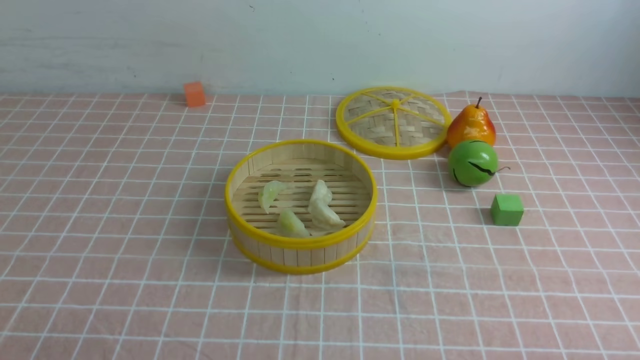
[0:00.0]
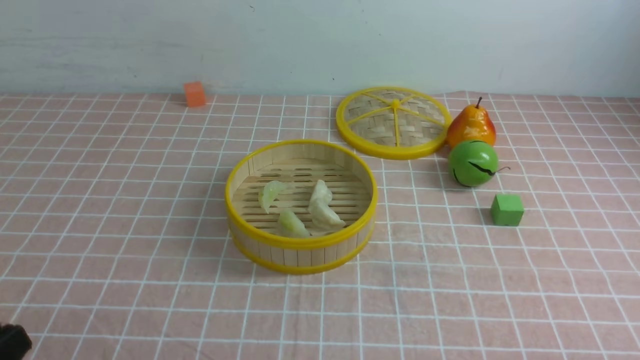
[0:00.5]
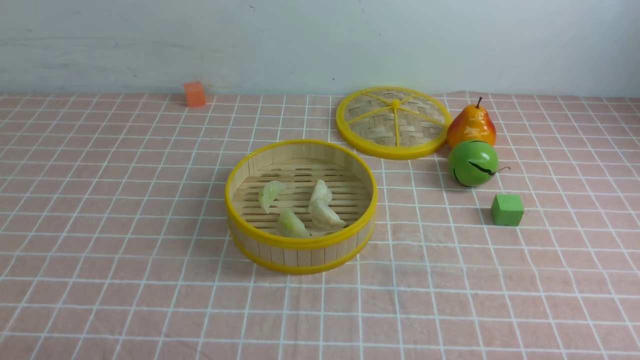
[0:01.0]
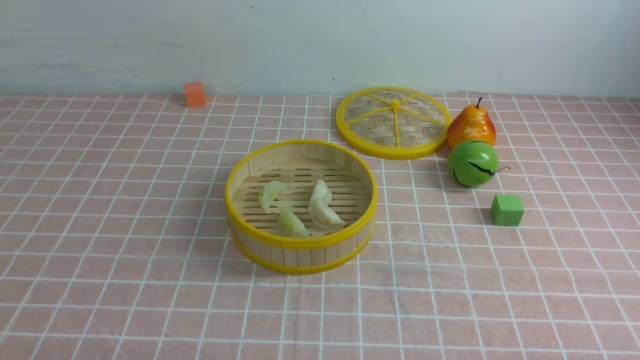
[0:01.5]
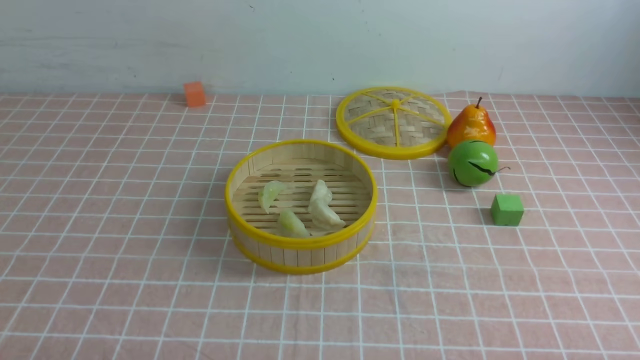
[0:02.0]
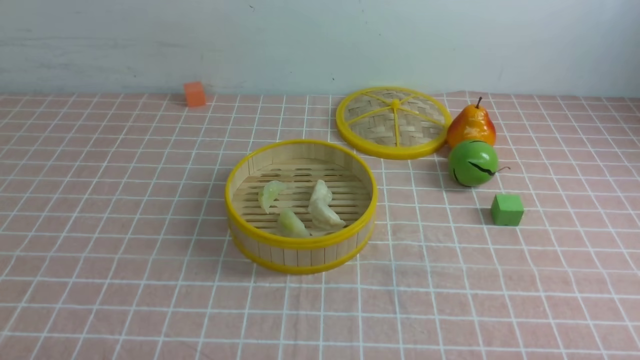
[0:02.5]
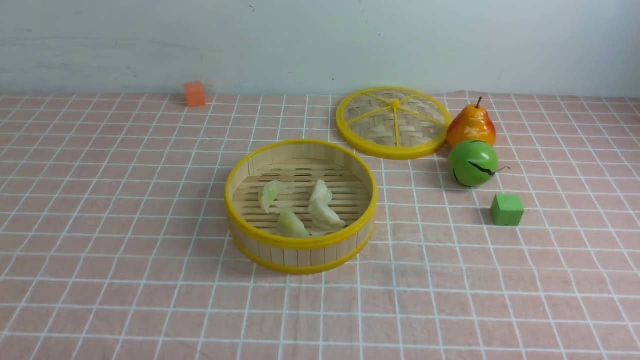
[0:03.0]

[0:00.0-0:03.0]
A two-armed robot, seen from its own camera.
Task of the whole recording: put the dumplings into the steamer on the table with the pink tablecloth.
0:01.5 to 0:03.0: Both grippers stay about where they are.

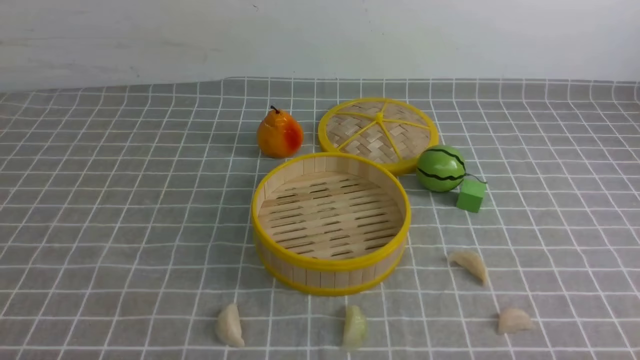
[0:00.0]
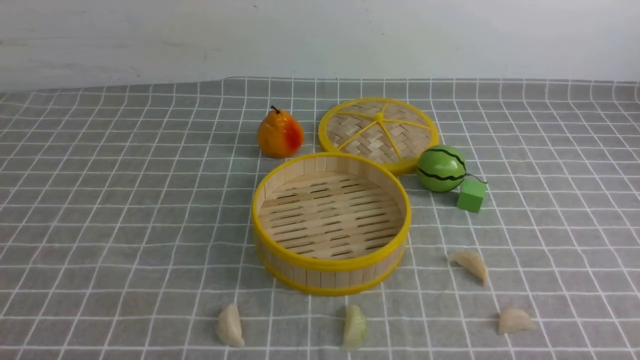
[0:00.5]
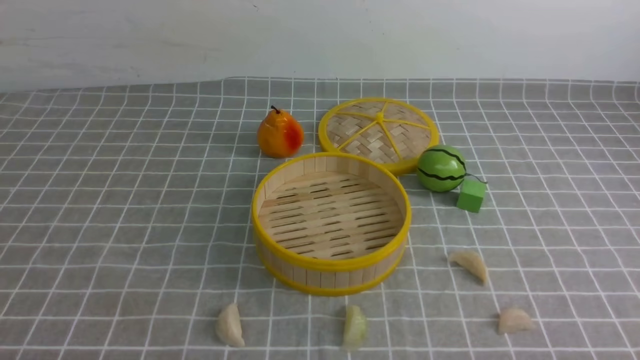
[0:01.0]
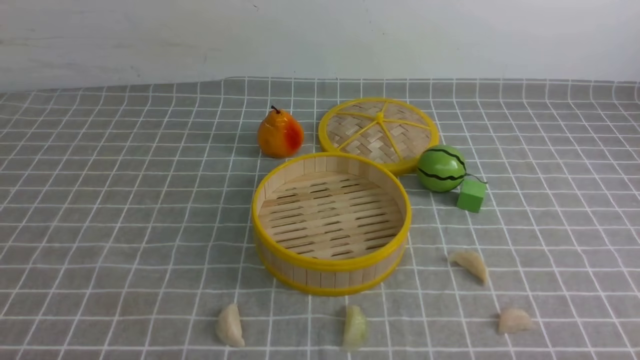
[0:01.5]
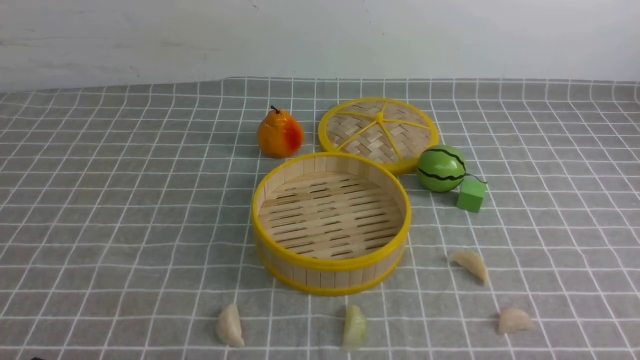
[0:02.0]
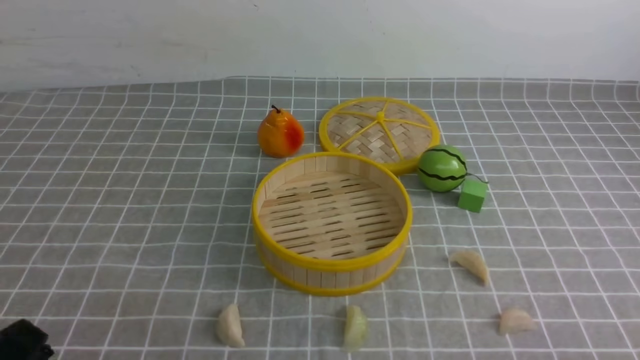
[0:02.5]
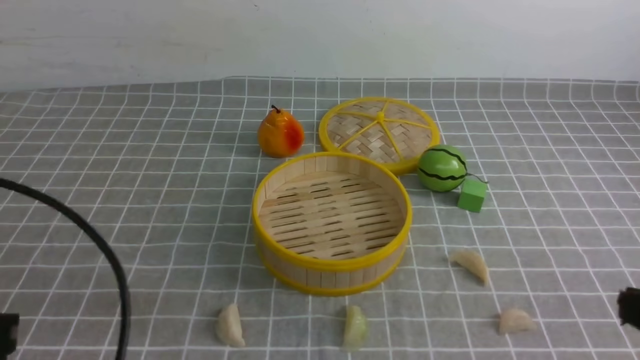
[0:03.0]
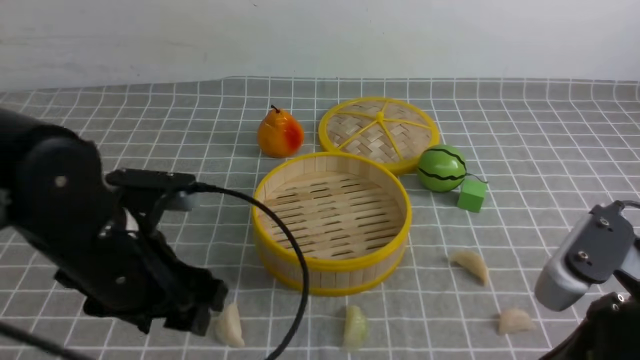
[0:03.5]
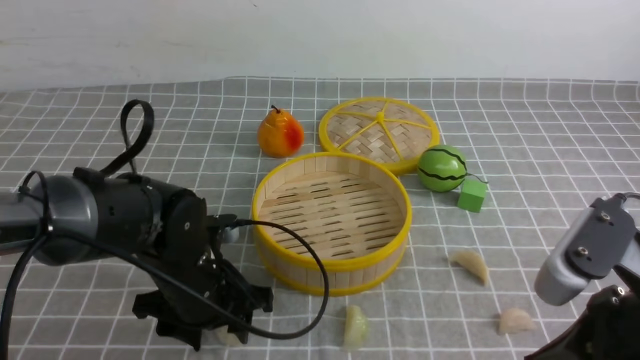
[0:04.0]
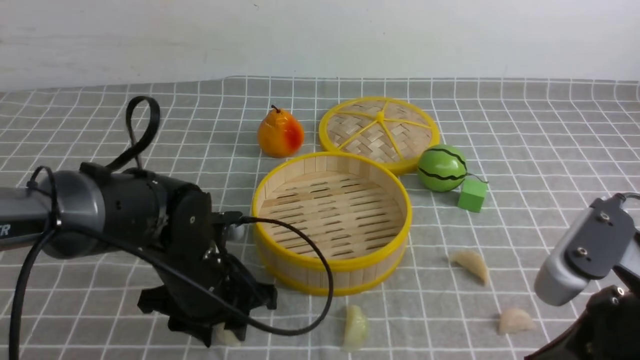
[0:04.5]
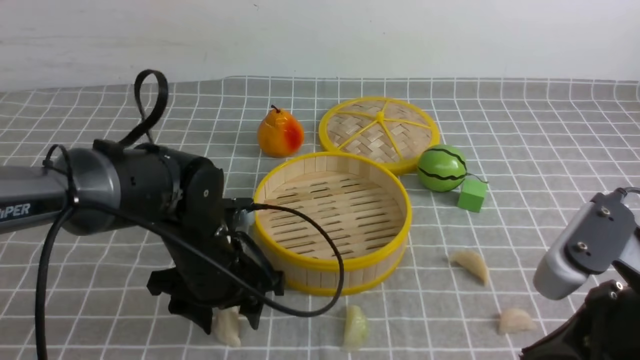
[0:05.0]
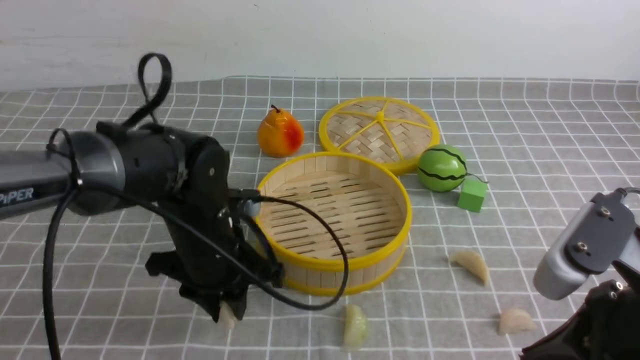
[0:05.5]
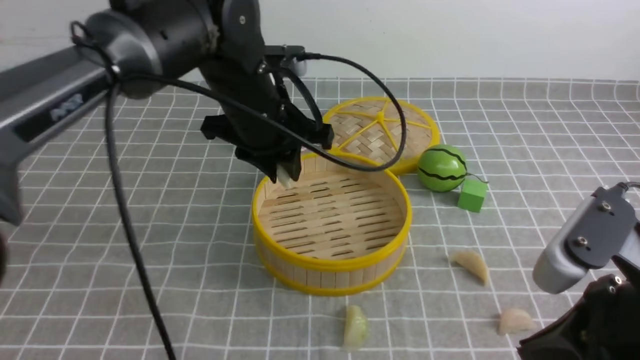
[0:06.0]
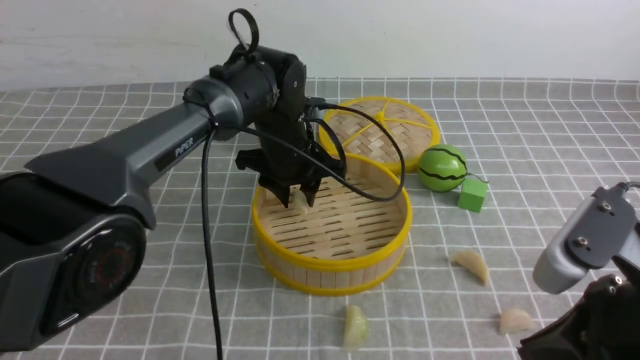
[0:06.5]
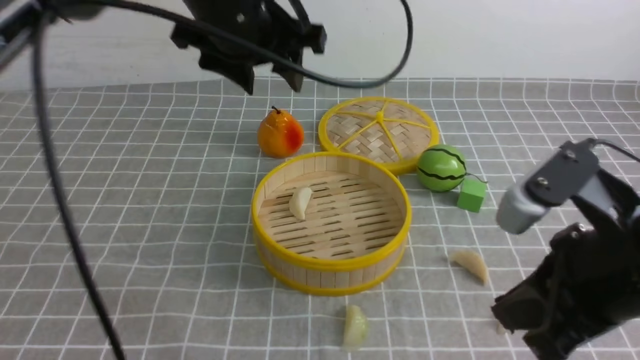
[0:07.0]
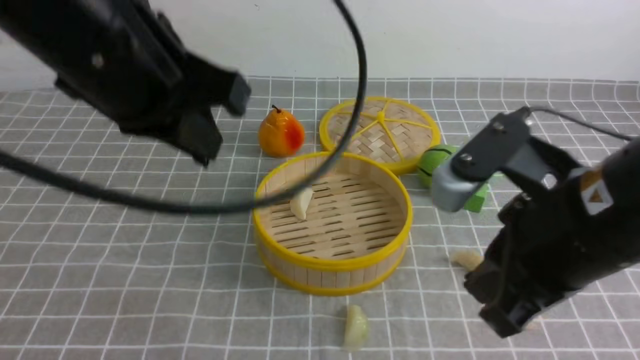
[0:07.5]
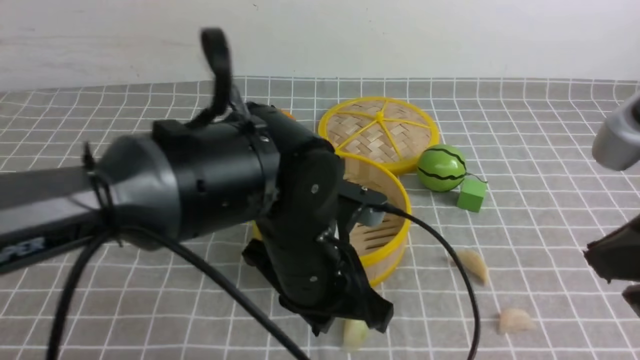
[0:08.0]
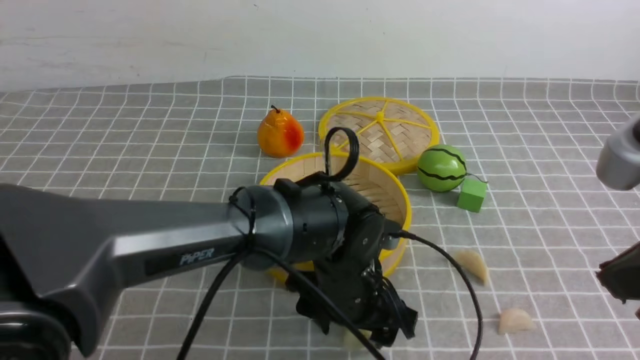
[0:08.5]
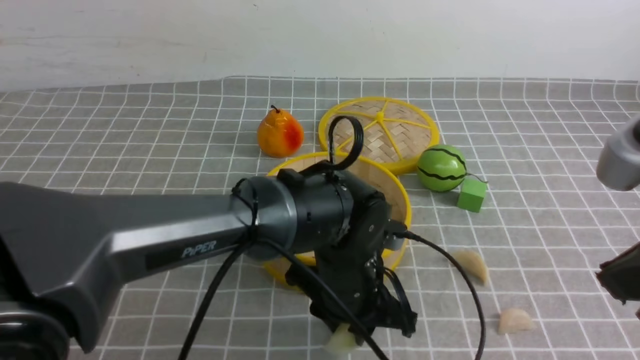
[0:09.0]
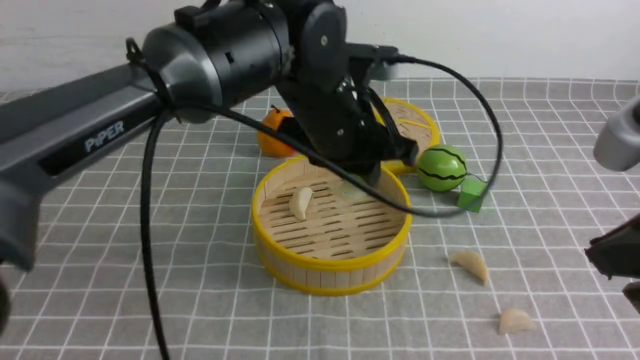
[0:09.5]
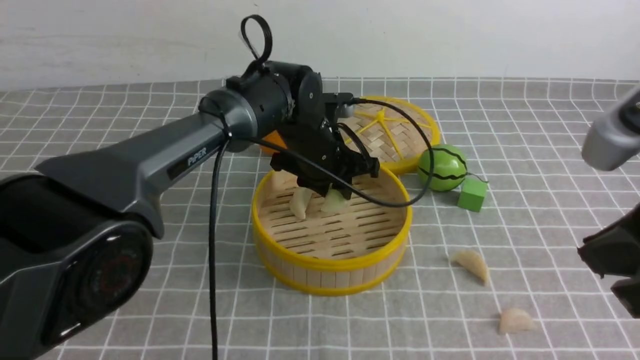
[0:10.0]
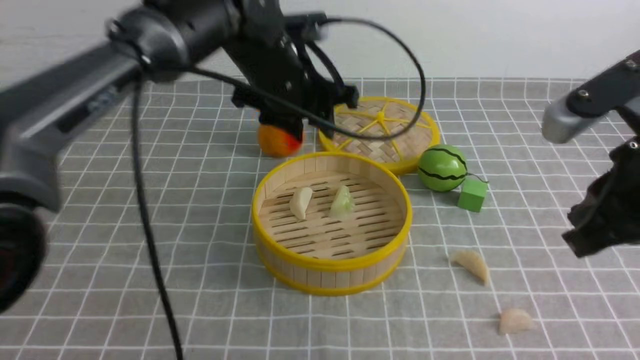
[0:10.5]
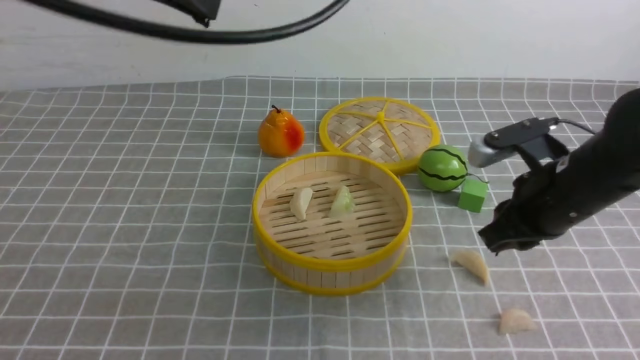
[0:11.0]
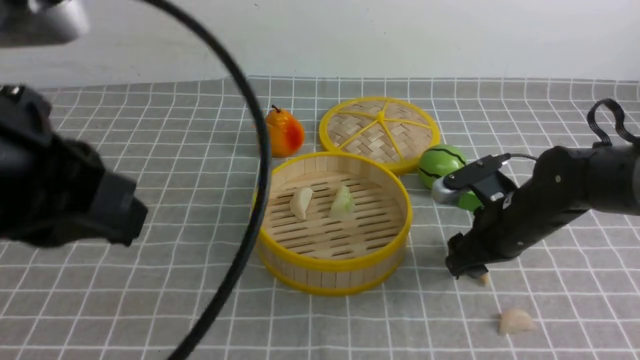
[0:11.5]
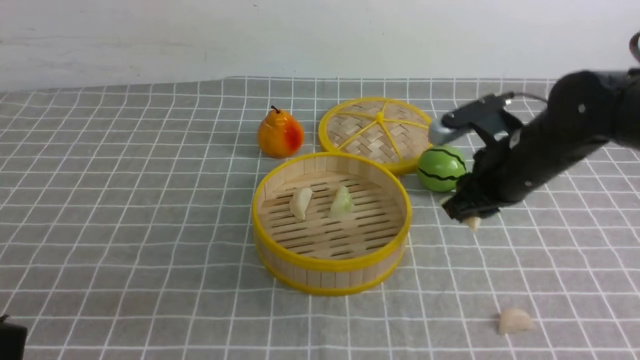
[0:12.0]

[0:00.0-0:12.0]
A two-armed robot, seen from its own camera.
Task of the whole recording: put the dumplings into the steamer on the table with the grey tablecloth.
Step, 0:00.0 to 0:05.5: use the left arm to grab a dumpling.
Step, 0:06.0 to 0:06.5: use the left arm to put the dumpling into the steamer.
Step, 0:07.0 to 0:09.0: use the left arm to grab a dumpling.
Step, 0:09.5 to 0:10.0: use the left arm to put the dumpling into the steamer.
Step, 0:10.5 to 0:11.5: use the right arm to grab a dumpling.
0:02.0 to 0:04.0: The right gripper travels upward, forward and to the left by approximately 15 cm, and closes up. The left gripper travels forward and to the right by about 25 cm, and opens up.
0:04.0 to 0:06.0: The left gripper is displaced upward, forward and to the right by roughly 20 cm, and closes up.
0:06.0 to 0:08.0: The right gripper travels upward by some 10 cm. The left gripper goes approximately 15 cm backward.
0:08.0 to 0:10.0: The left gripper shifts approximately 20 cm forward, and opens up.
0:10.0 to 0:12.0: The left gripper is displaced backward, to the left and upward by roughly 50 cm, and closes. The right gripper moves forward and downward, about 25 cm, and opens, then closes again.

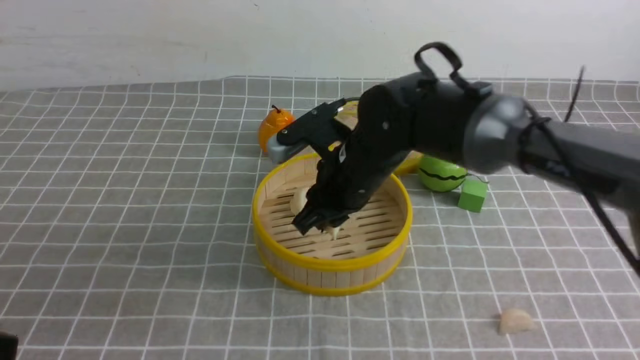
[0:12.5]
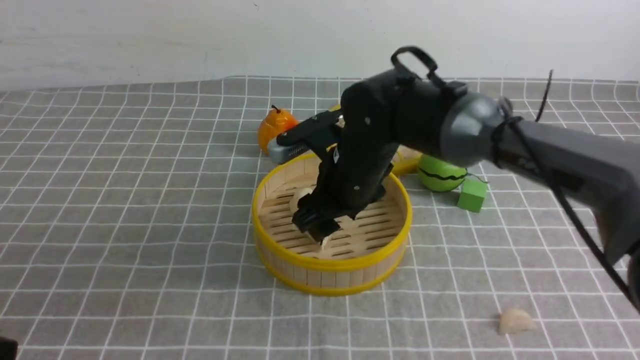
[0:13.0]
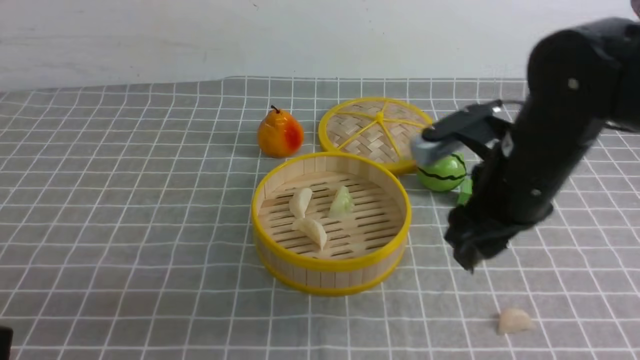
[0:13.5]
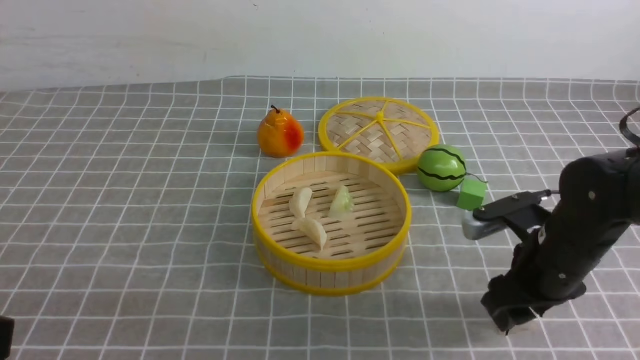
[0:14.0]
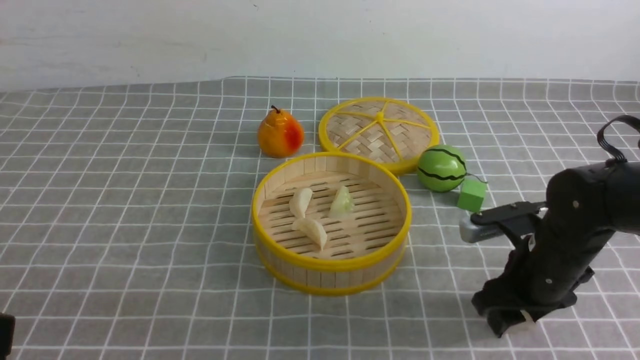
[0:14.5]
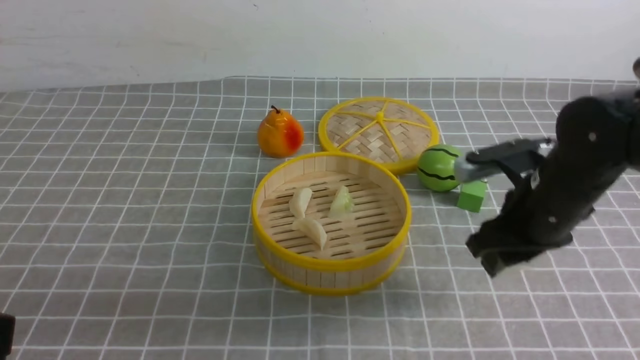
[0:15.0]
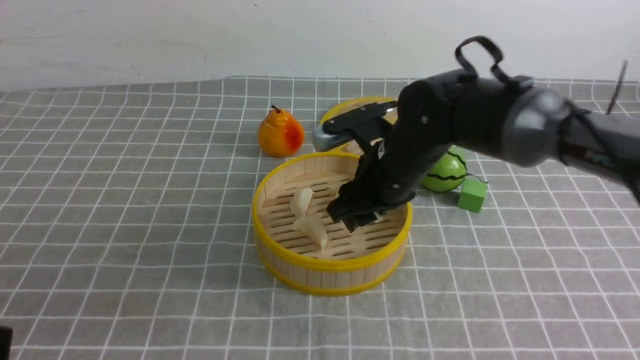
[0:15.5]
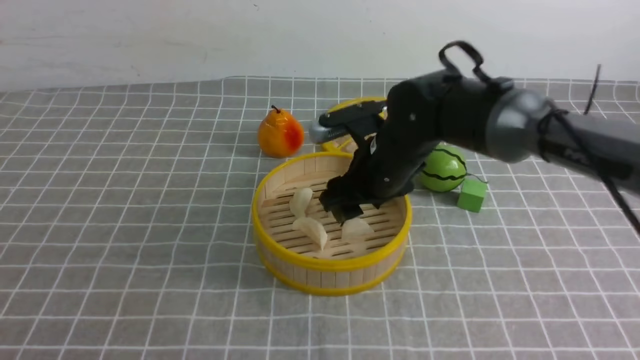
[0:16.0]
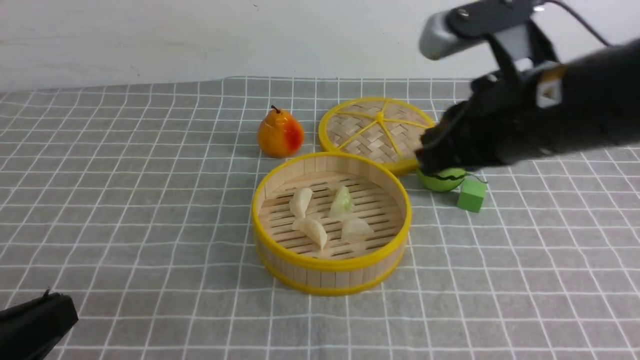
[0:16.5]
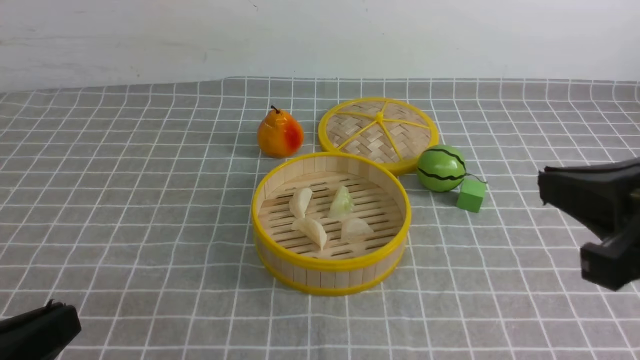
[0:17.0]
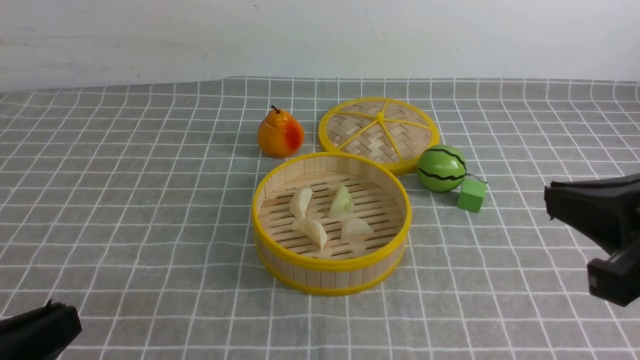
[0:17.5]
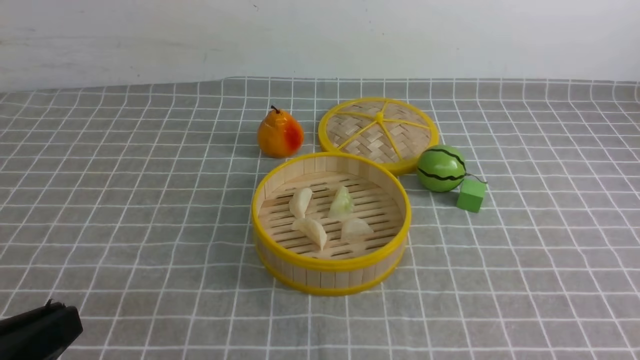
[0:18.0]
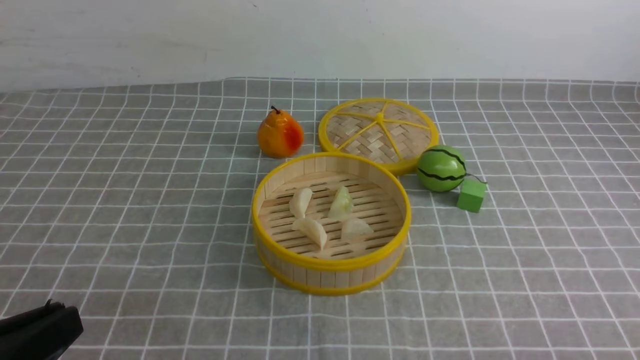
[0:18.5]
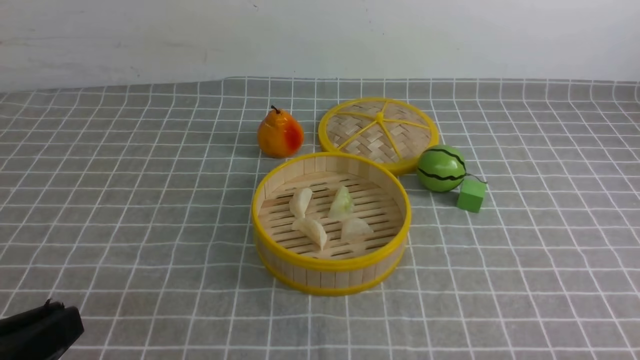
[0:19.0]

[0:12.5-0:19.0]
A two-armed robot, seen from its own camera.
Task of the whole recording: put the dumplings into the steamer on the table with the grey tablecloth.
Step, 0:13.5 to 0:15.0: use the right arm to grab a dumpling.
Step, 0:15.5 to 0:16.0: use the right arm to put the dumpling into the steamer.
0:12.5 to 0:14.5: The right gripper is displaced to the right and downward by approximately 20 cm.
0:14.5 to 0:17.0: The left gripper moves downward, approximately 10 cm, while the right gripper travels upward and backward by roughly 25 cm, and closes up.
0:17.0 to 0:19.0: The right gripper moves downward, backward and to the right, about 25 cm.
